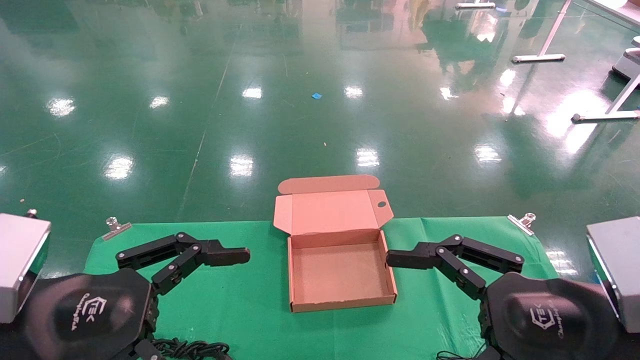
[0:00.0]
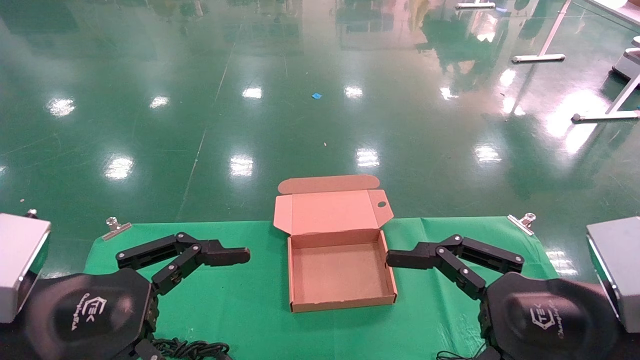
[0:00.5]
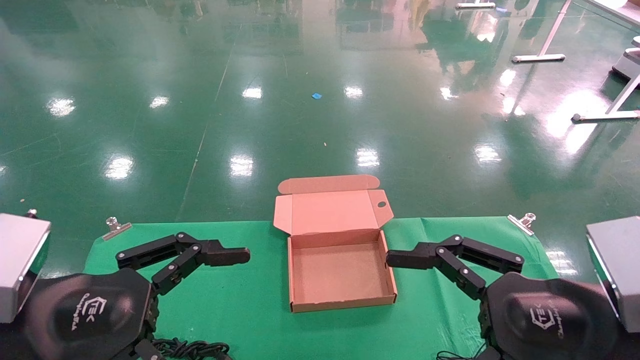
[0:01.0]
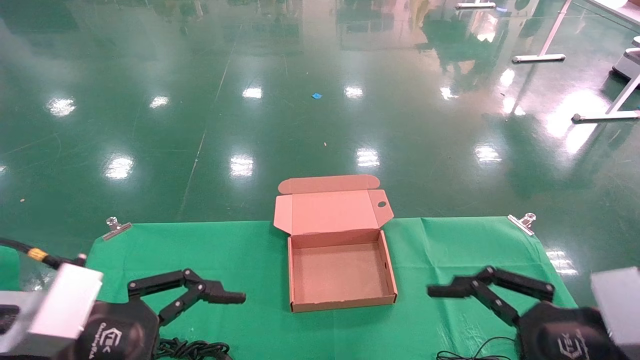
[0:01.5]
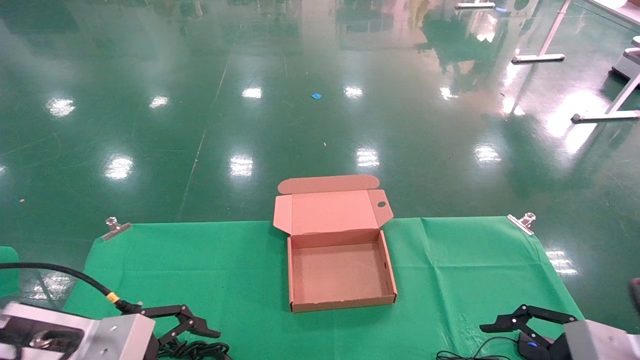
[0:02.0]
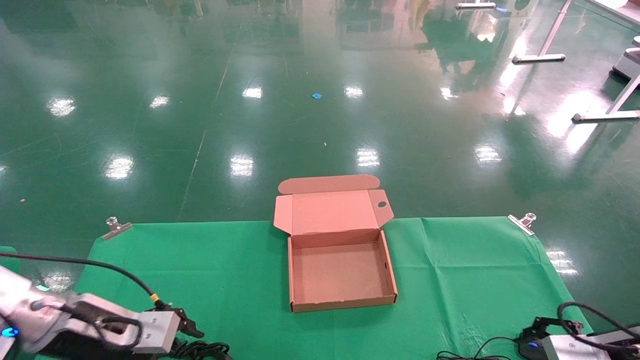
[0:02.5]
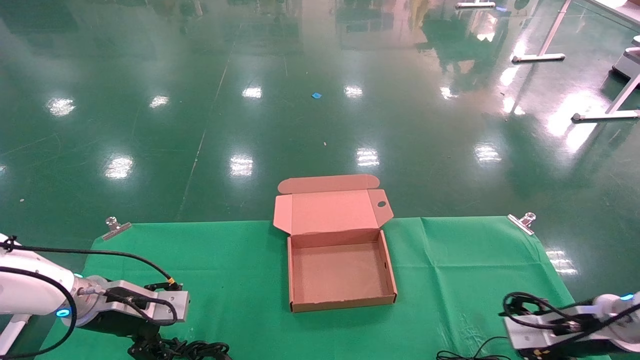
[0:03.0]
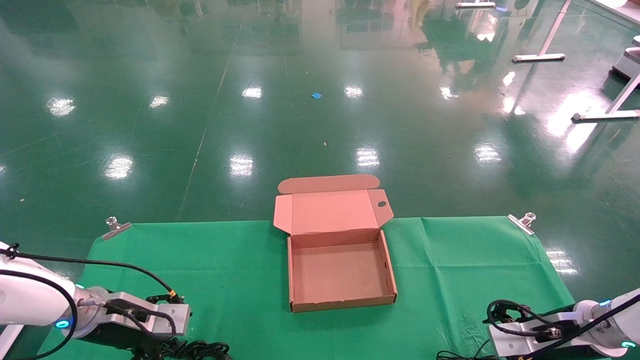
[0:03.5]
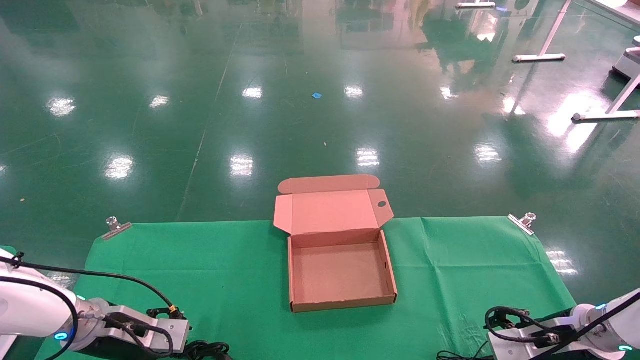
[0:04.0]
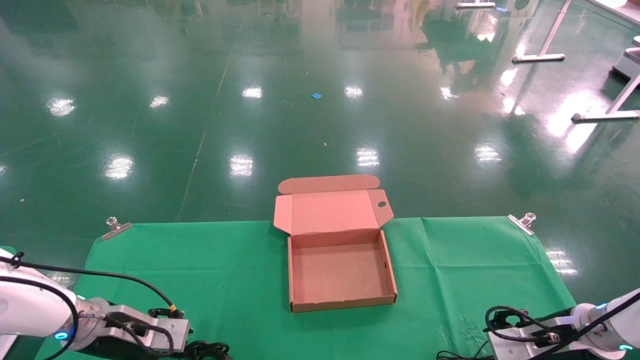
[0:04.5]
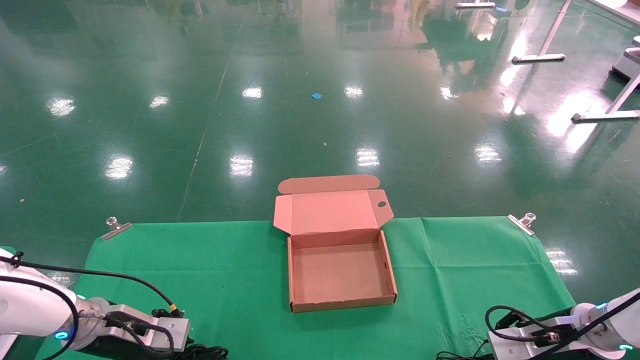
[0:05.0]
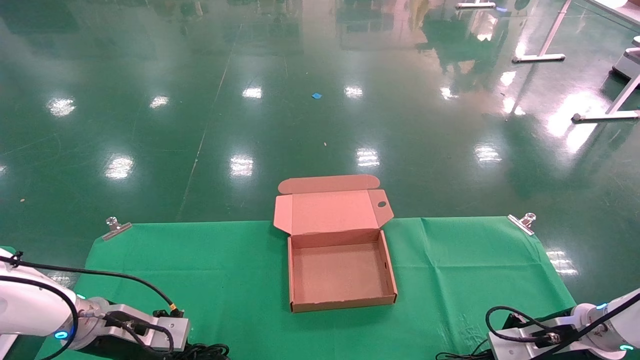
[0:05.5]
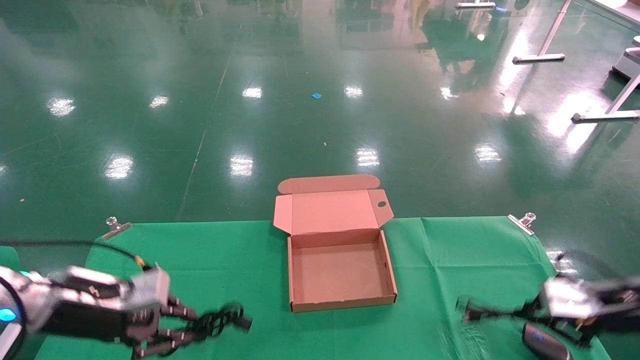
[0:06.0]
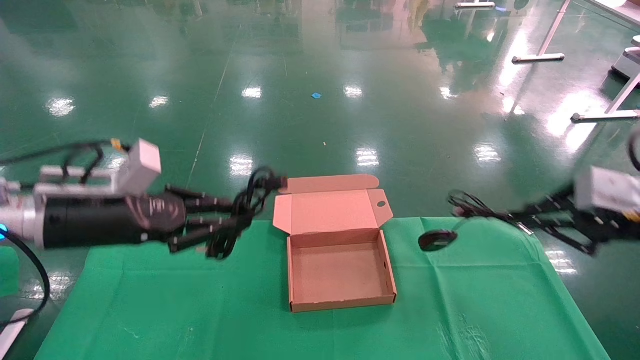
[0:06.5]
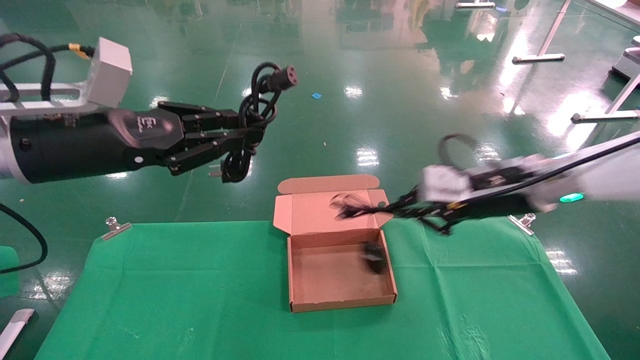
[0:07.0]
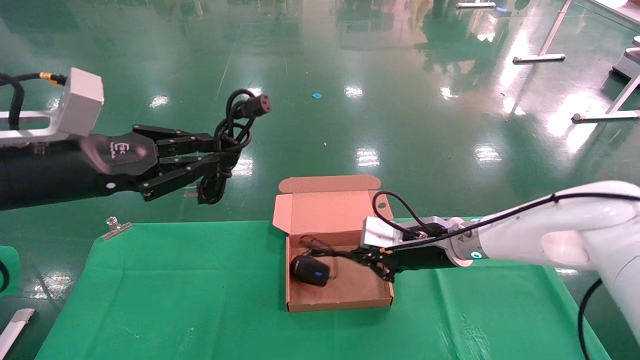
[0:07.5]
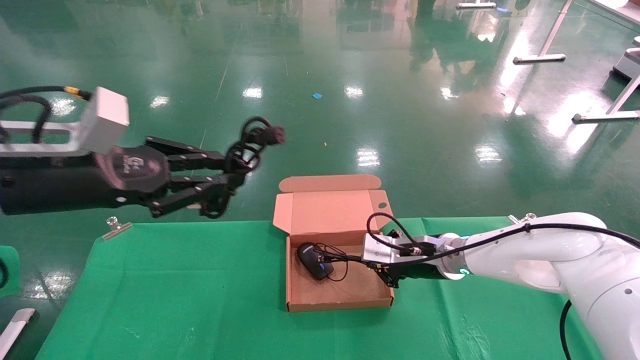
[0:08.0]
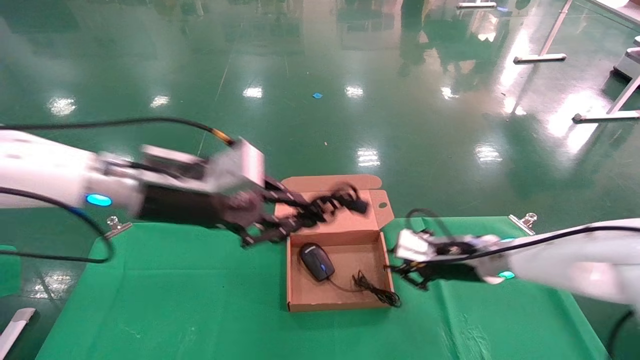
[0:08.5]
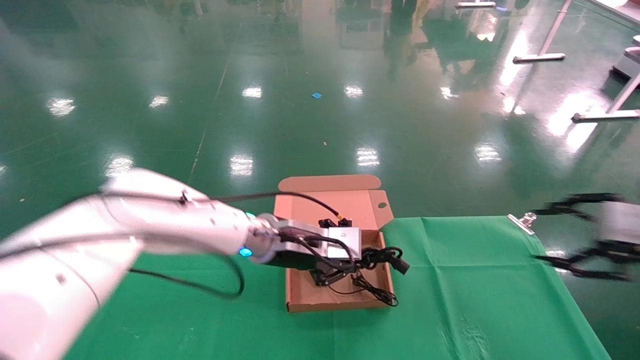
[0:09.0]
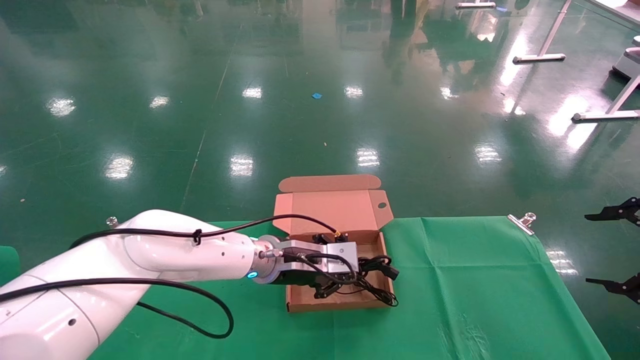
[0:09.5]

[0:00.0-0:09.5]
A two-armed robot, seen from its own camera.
Step, 0:01.5 to 0:05.5: Grab and lift both the mouse and power cord from the accessory packaging area at the same time.
0:00.0 to 0:02.0: The right gripper shifts about 15 cm to the right, downward and forward, while the left gripper goes roughly 10 cm forward and downward.
0:02.0 to 0:04.0: Both grippers move forward and downward, approximately 20 cm.
0:04.0 to 0:05.5: The right gripper closes up. The left gripper closes its fingers.
0:05.5 to 0:07.5: The left gripper heads upward, covering about 25 cm, while the right gripper heads to the left and upward, covering approximately 20 cm.
0:07.5 to 0:09.5: The left gripper shifts some 35 cm to the right, downward and forward, while the right gripper travels to the right and backward by approximately 35 cm, and opens its fingers.

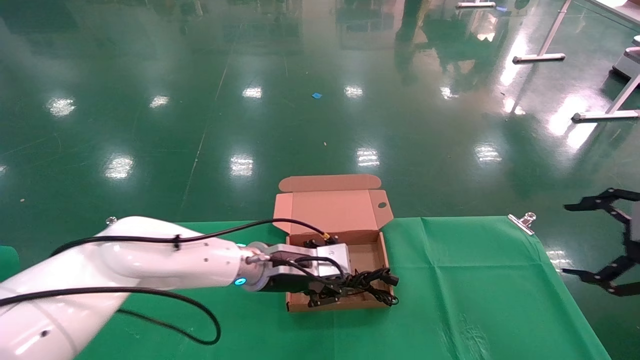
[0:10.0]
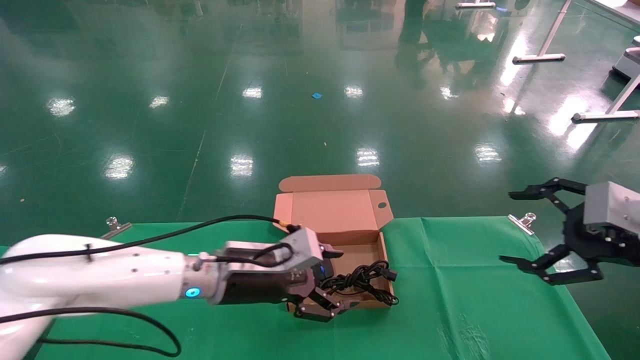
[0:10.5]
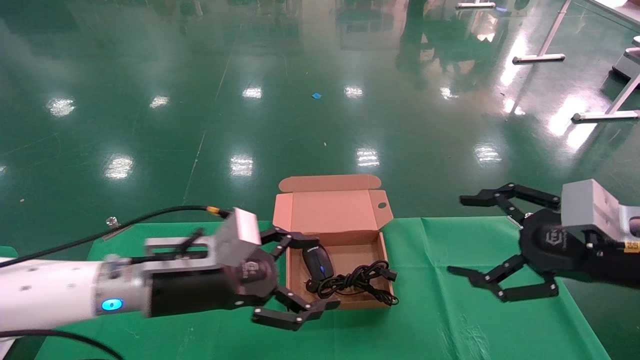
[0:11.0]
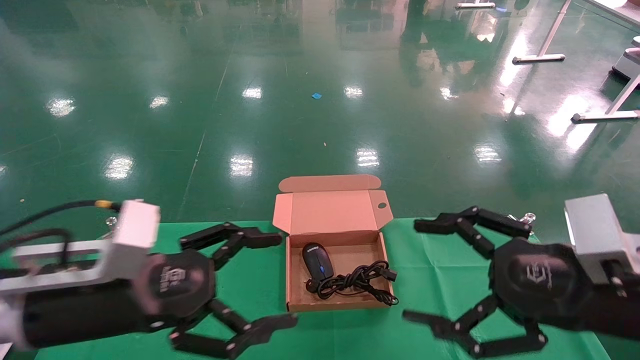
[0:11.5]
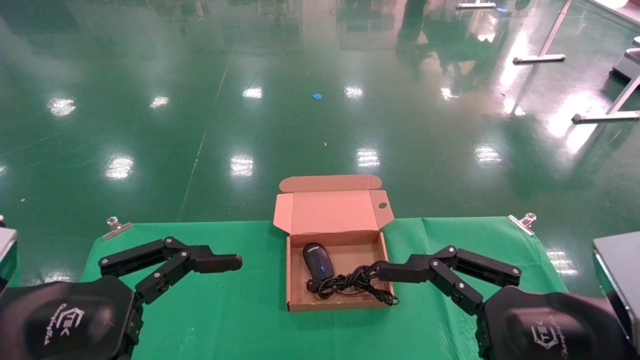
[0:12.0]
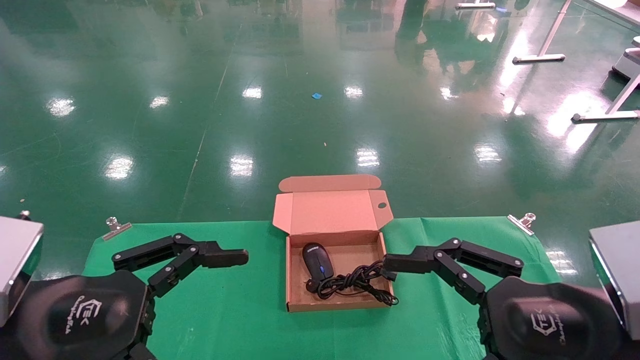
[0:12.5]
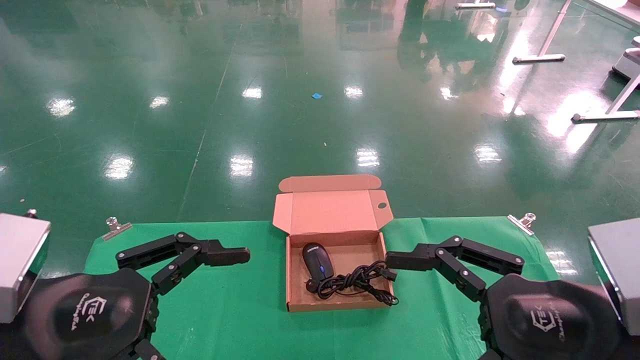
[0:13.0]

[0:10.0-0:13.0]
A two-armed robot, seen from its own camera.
0:10.0 to 0:11.5: The left gripper goes about 25 cm backward and to the left, and opens up. Meanwhile the right gripper heads to the left, covering approximately 20 cm.
0:11.5 to 0:13.0: The left gripper travels backward by some 5 cm.

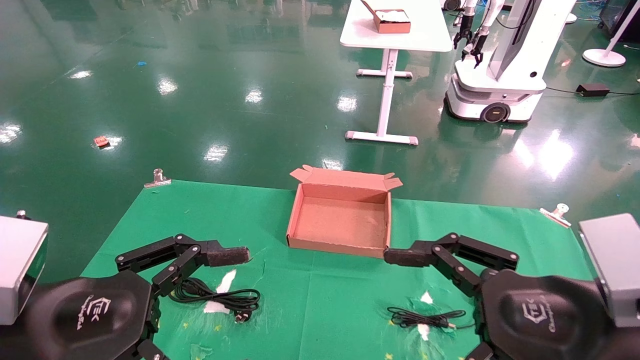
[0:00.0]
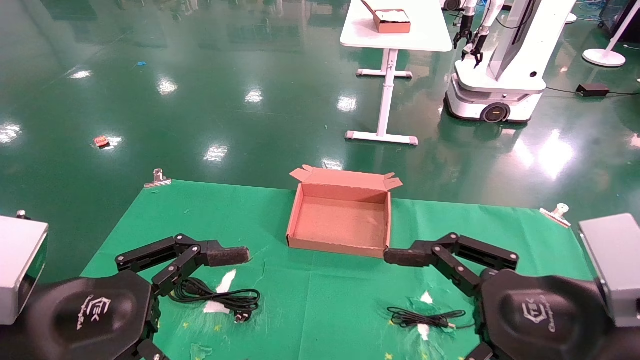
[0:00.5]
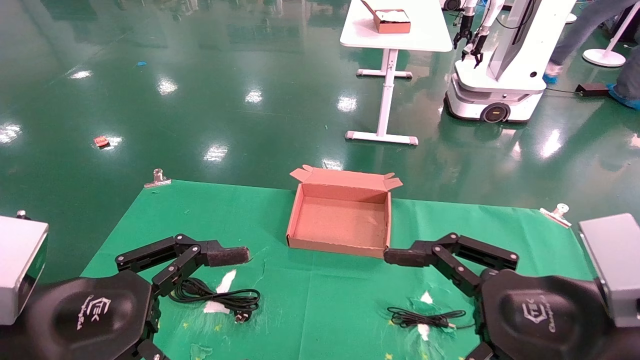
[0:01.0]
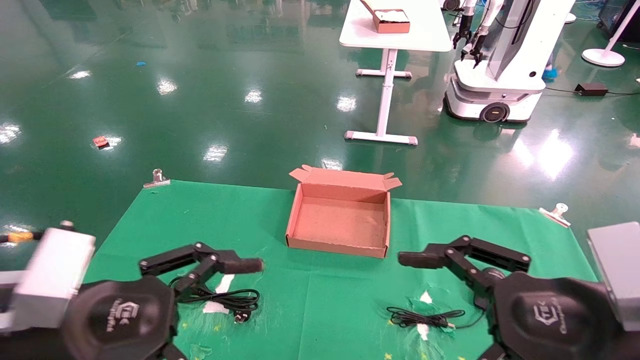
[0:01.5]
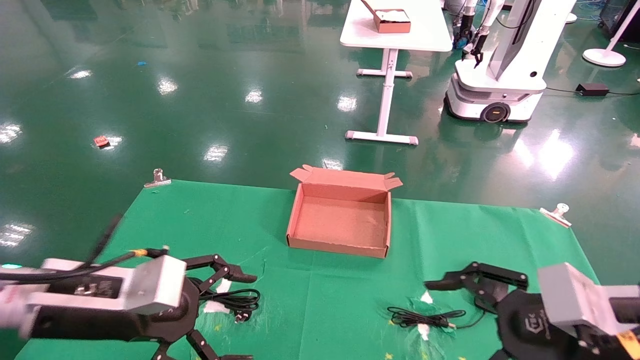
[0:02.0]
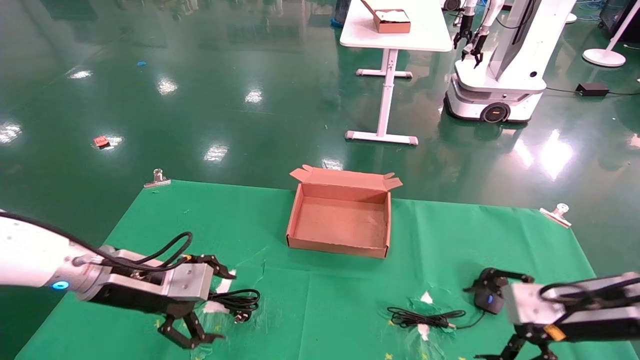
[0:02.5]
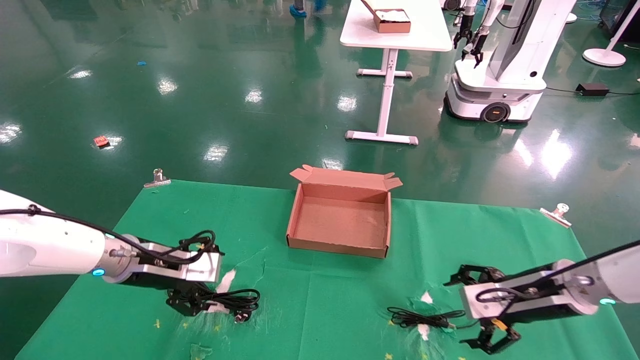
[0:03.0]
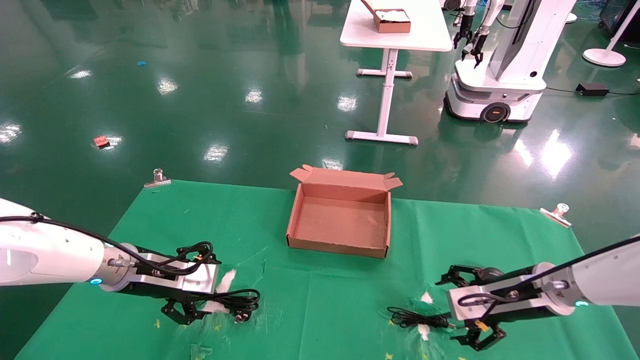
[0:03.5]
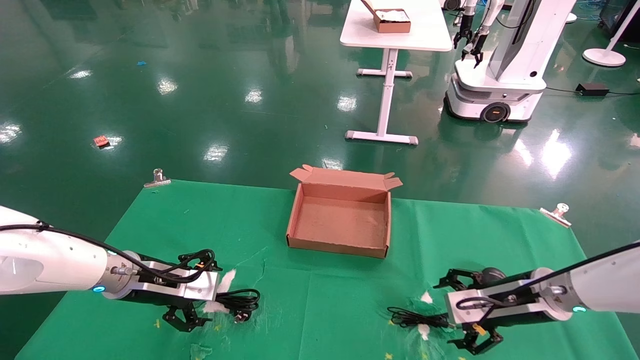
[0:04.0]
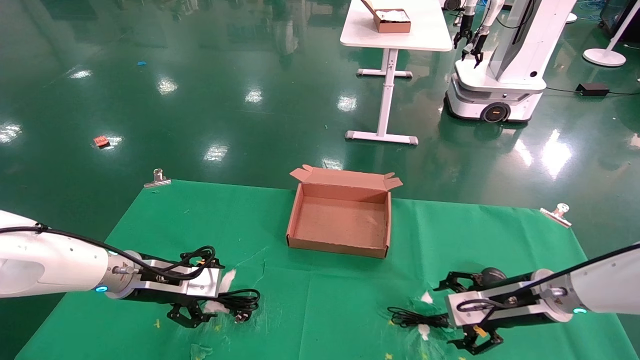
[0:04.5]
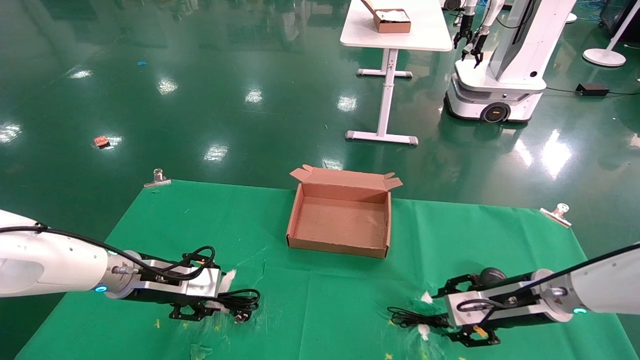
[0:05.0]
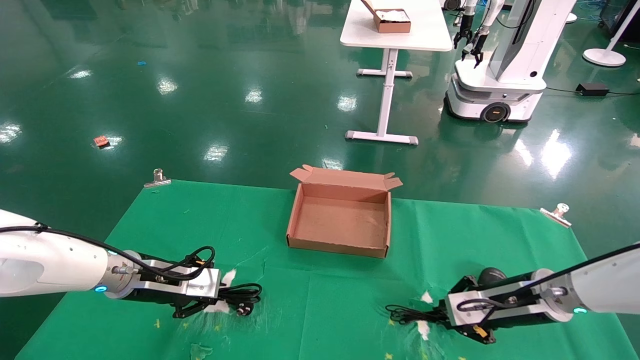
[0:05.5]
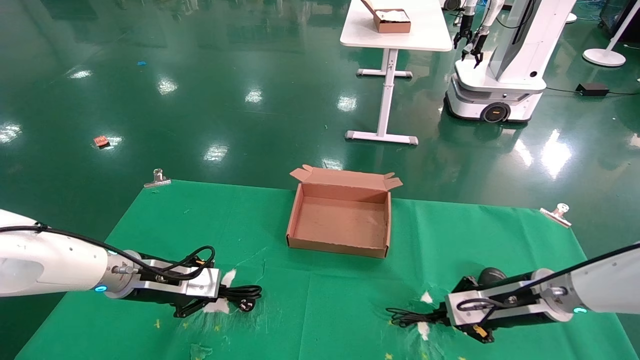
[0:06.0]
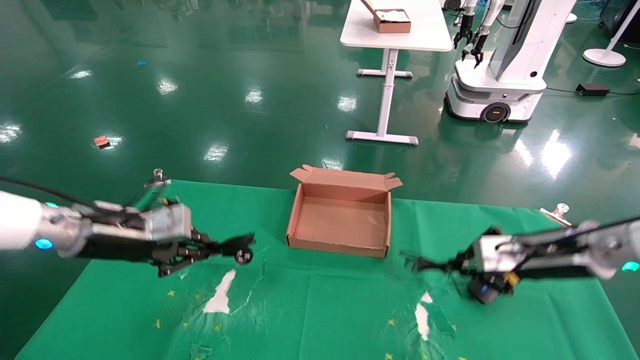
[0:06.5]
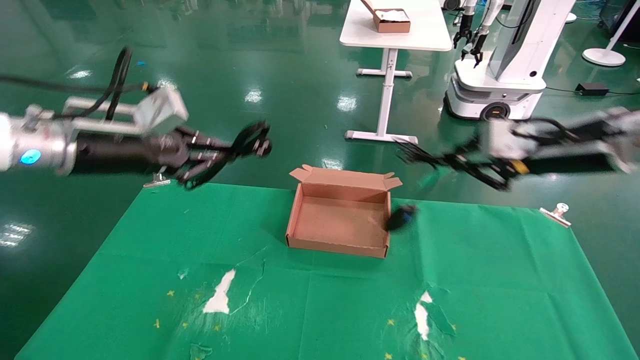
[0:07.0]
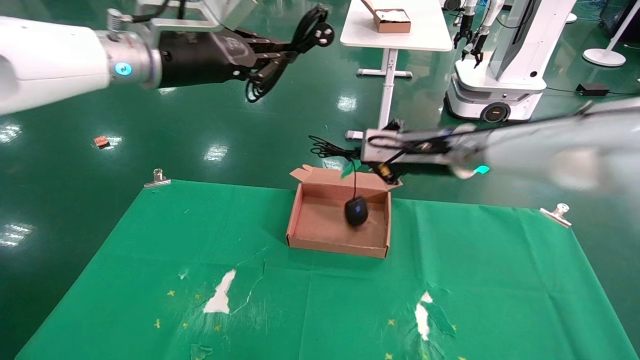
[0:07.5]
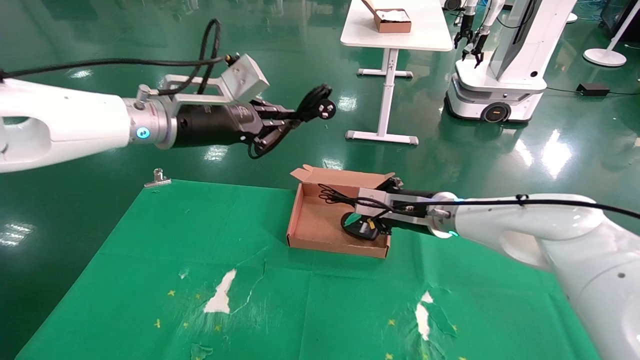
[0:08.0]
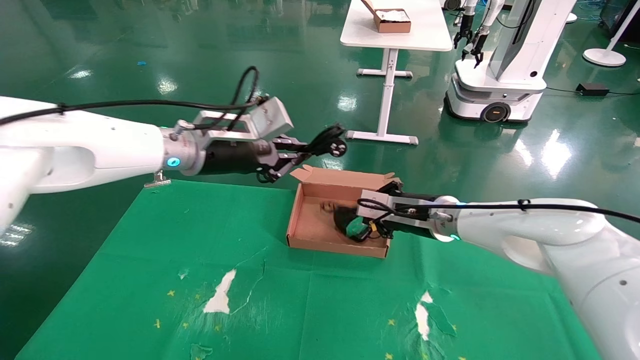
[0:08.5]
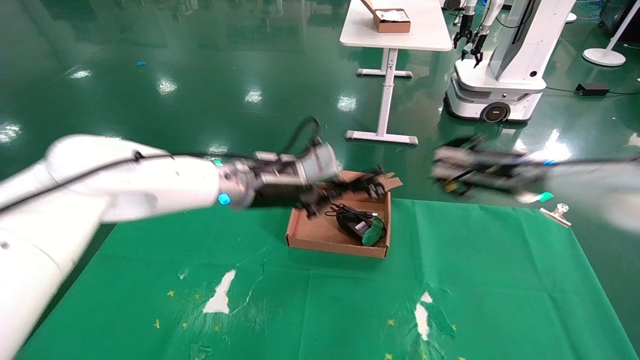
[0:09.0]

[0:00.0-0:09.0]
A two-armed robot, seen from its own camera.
Step, 0:02.0 to 0:05.0: Grab and lift both the mouse and power cord from the accessory packaging area at the same time.
0:00.0 to 0:02.0: The left gripper goes approximately 10 cm forward, while the right gripper goes some 10 cm forward and to the right.
0:02.0 to 0:04.5: The grippers both shift forward and downward by about 15 cm.
0:04.5 to 0:07.0: The grippers both shift upward by some 20 cm. The right gripper closes its fingers. Meanwhile the left gripper closes its fingers.
0:07.0 to 0:09.0: The left gripper heads to the right and downward, covering approximately 20 cm; the right gripper shifts roughly 10 cm forward and downward, and reaches roughly 15 cm to the left, then returns.
